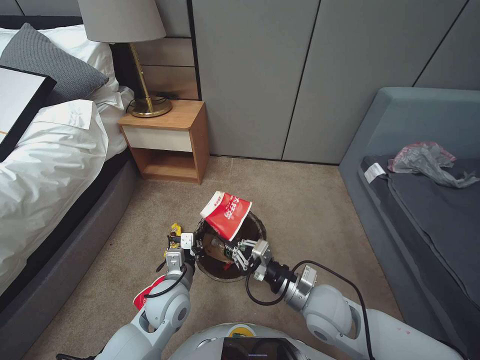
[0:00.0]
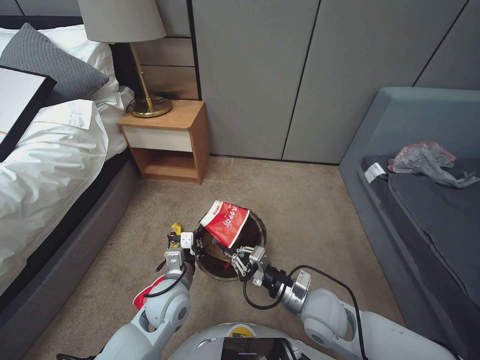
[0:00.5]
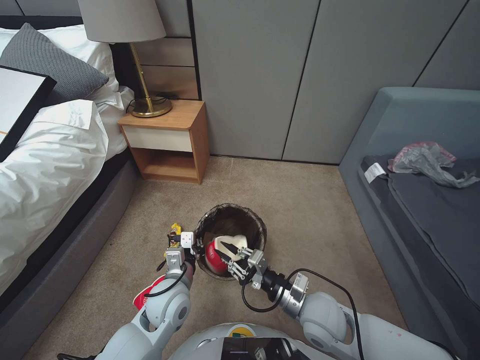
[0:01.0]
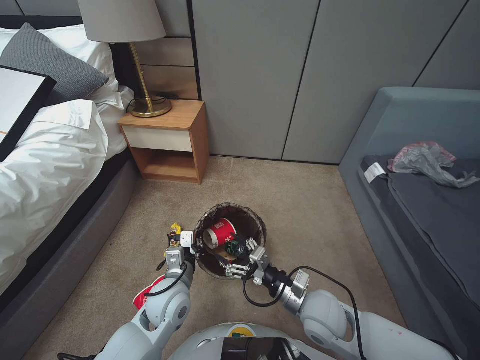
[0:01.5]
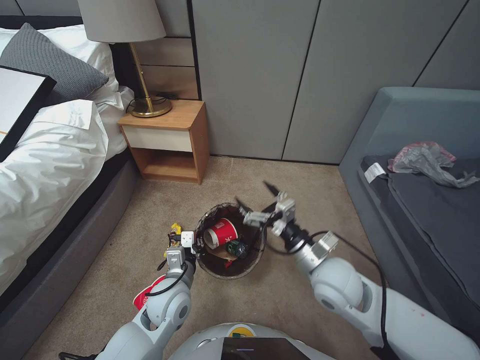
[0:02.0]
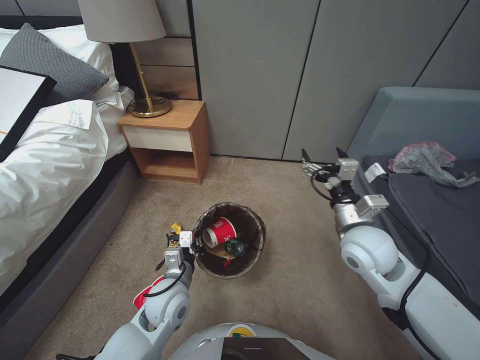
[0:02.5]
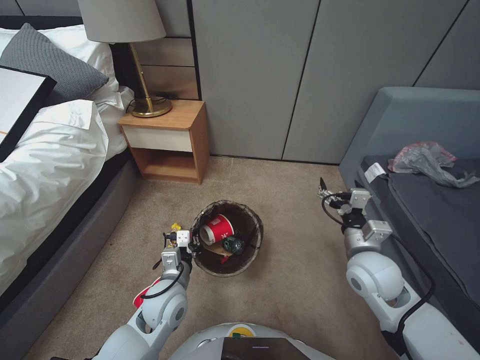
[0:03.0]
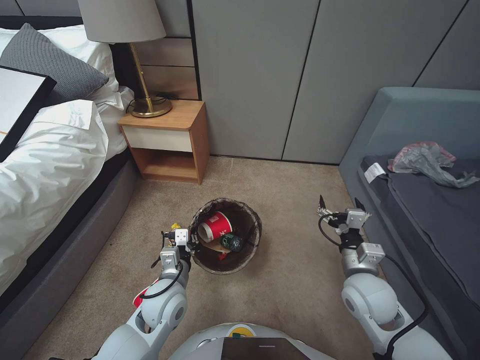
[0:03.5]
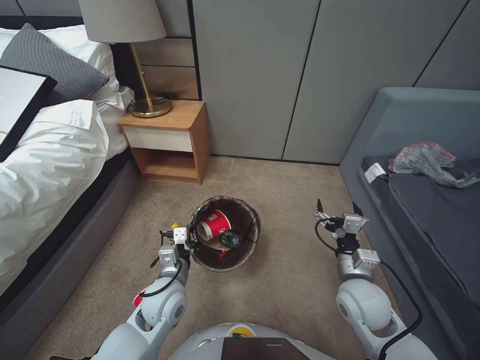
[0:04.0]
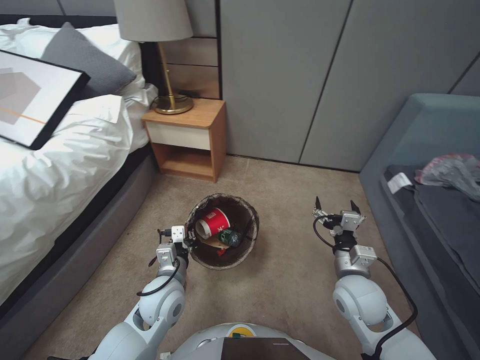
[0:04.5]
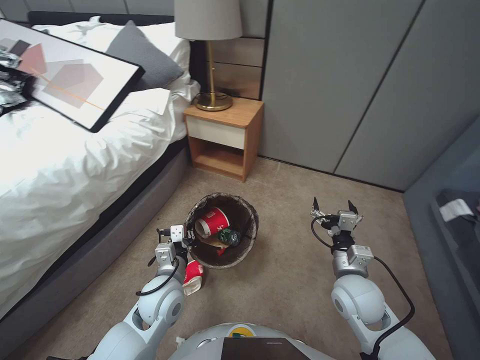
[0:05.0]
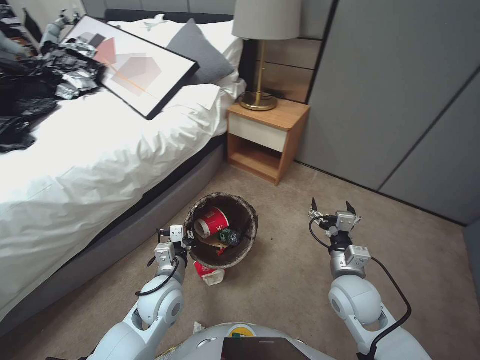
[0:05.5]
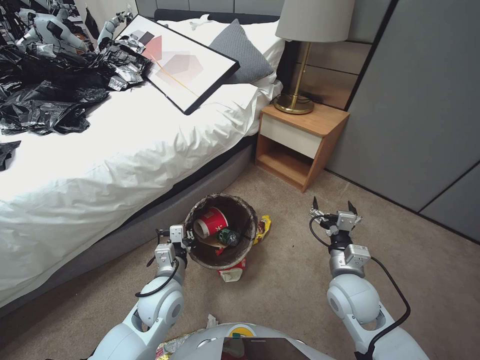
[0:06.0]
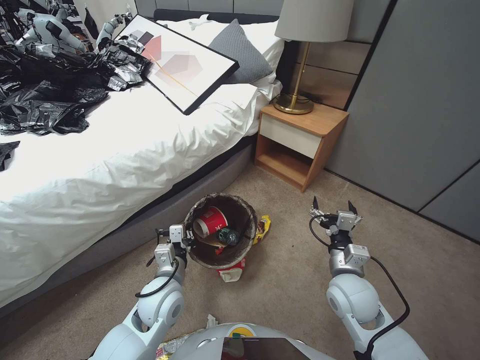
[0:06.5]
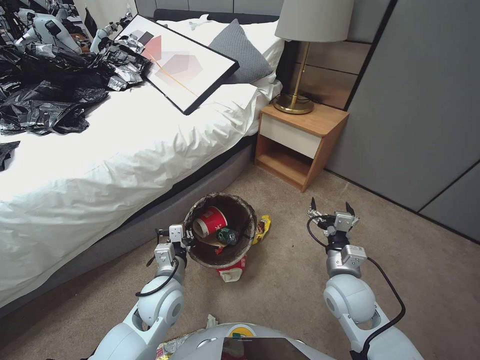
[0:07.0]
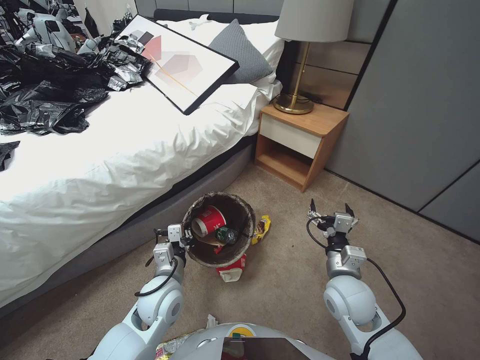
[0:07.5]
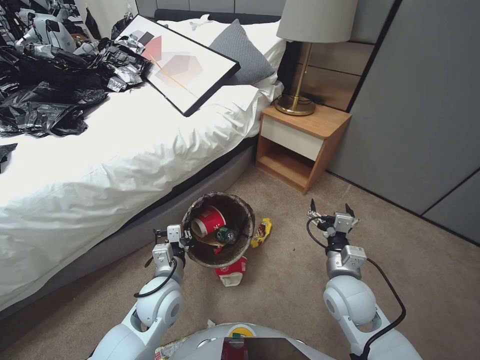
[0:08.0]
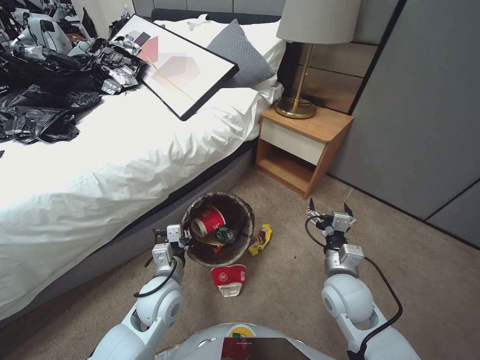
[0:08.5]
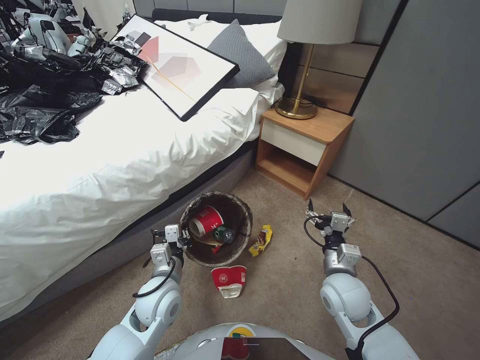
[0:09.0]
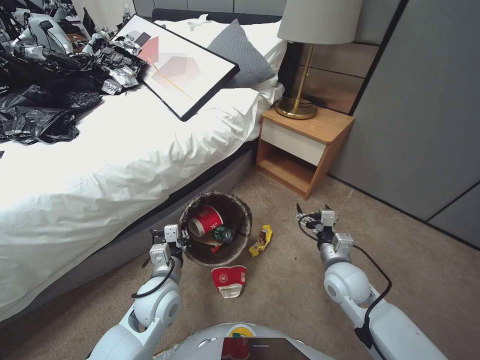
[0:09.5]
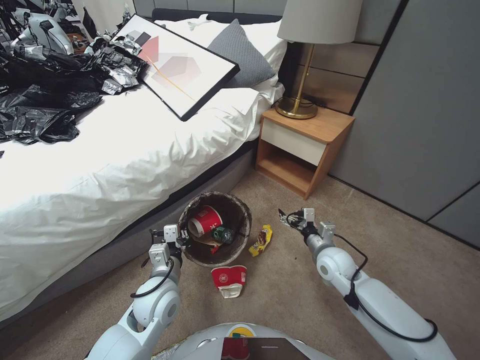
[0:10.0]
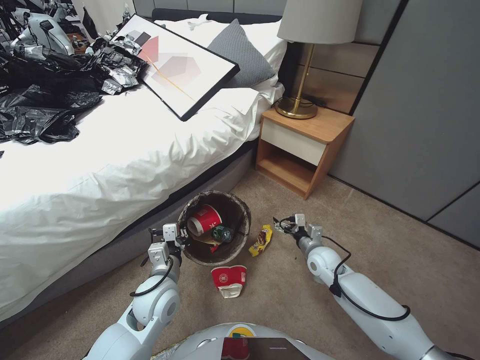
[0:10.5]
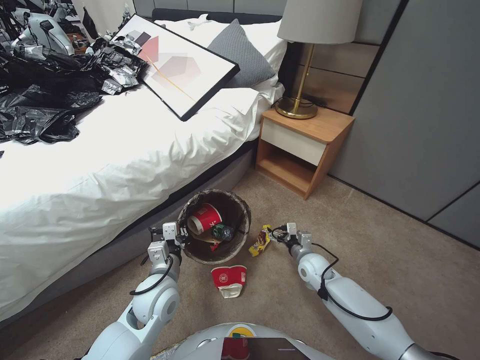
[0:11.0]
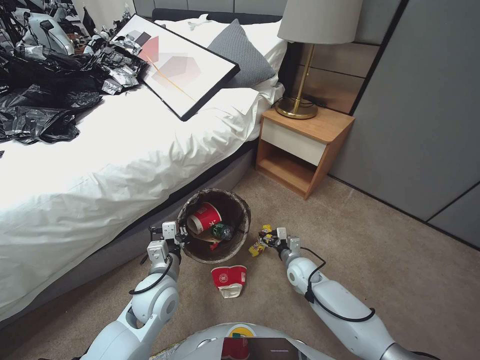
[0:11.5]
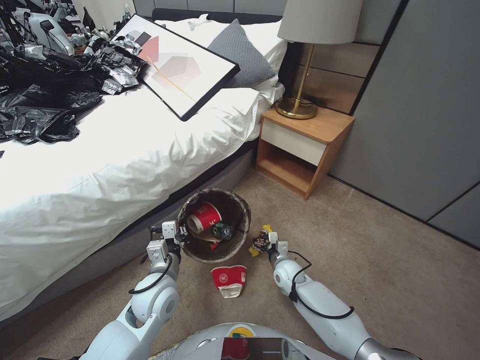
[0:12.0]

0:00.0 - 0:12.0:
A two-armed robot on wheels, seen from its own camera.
Task of the whole recording: Pick up the trash bin, then pick up the garbage from the floor and place it into the trash bin.
0:00.0 - 0:02.0: The right gripper opens its fingers.
0:02.0 - 0:04.0: The right gripper travels to the right by roughly 10 cm.
0:06.0 - 0:08.0: Both grippers stay put.
0:08.0 - 0:10.0: The right gripper shifts about 10 cm forward.
0:10.0 - 0:12.0: The right gripper heads downward and to the left, covering roughly 15 cm.

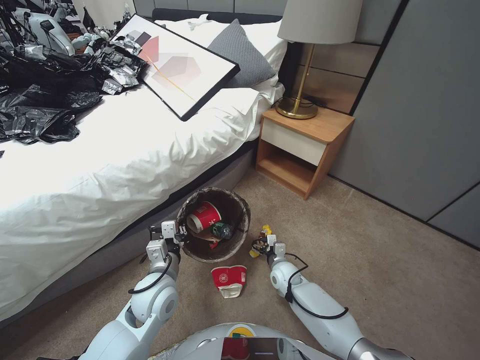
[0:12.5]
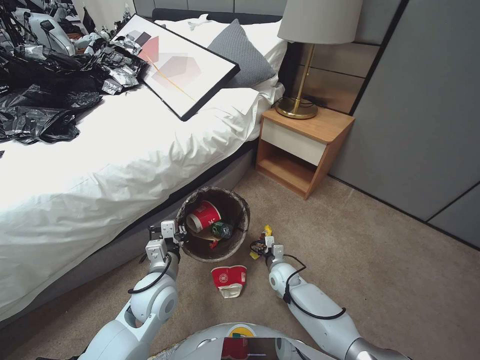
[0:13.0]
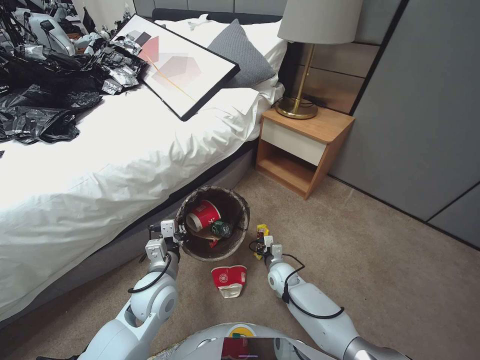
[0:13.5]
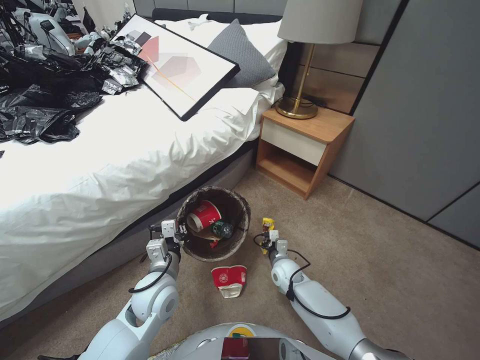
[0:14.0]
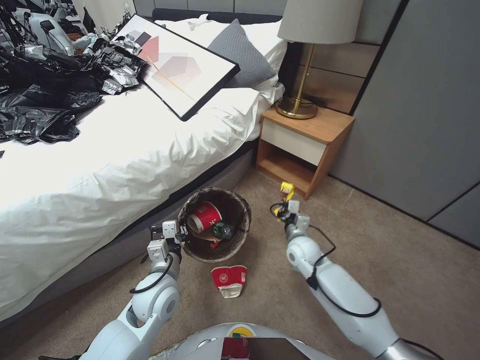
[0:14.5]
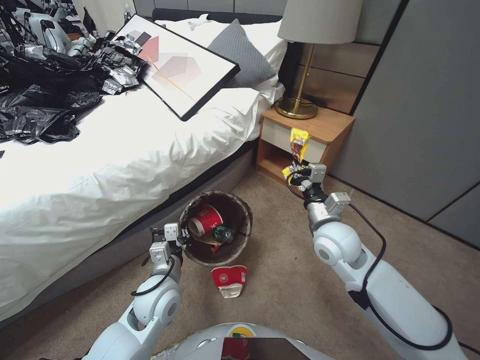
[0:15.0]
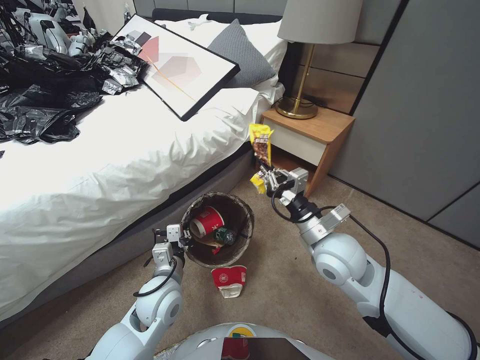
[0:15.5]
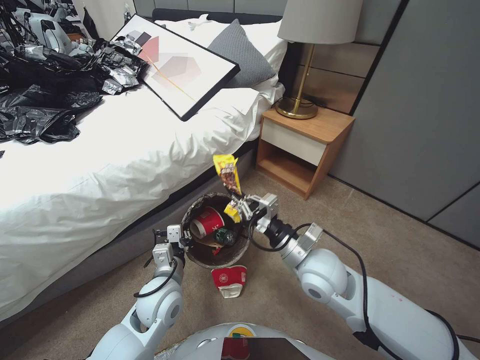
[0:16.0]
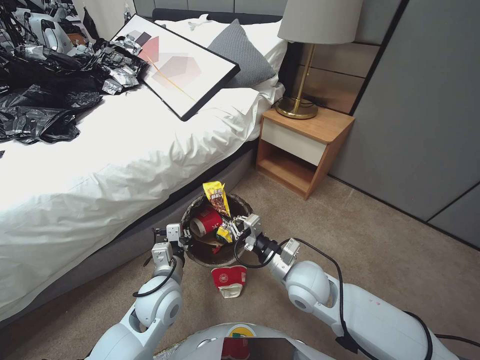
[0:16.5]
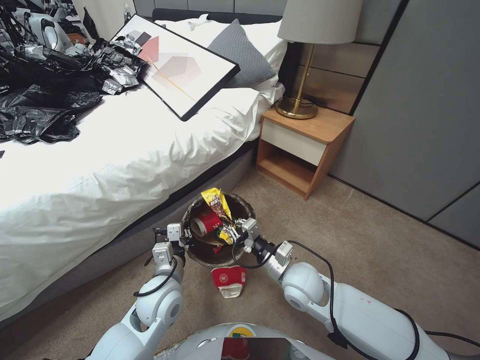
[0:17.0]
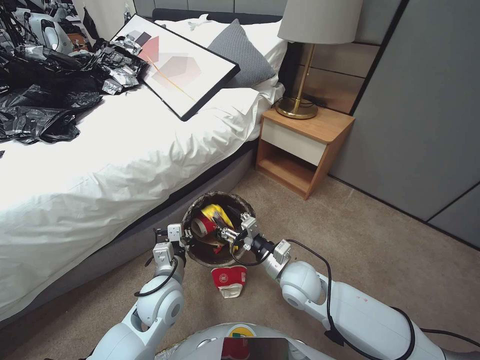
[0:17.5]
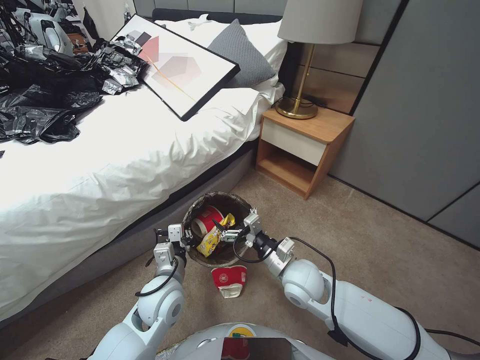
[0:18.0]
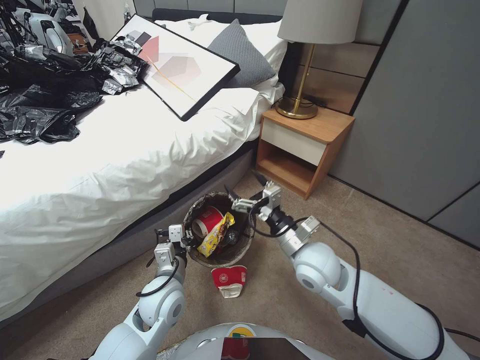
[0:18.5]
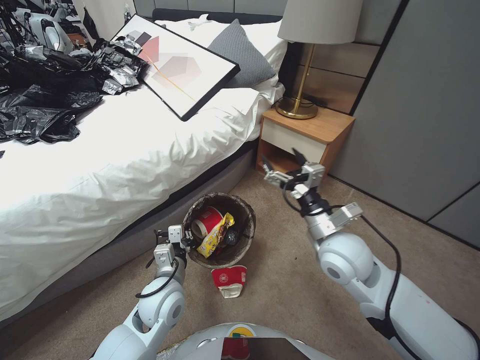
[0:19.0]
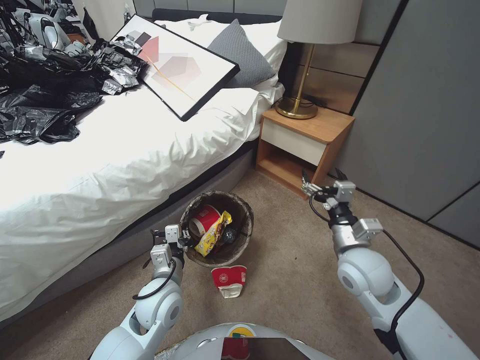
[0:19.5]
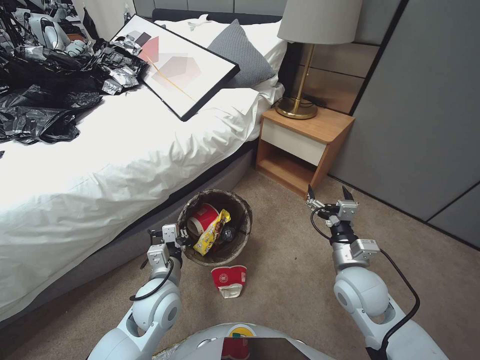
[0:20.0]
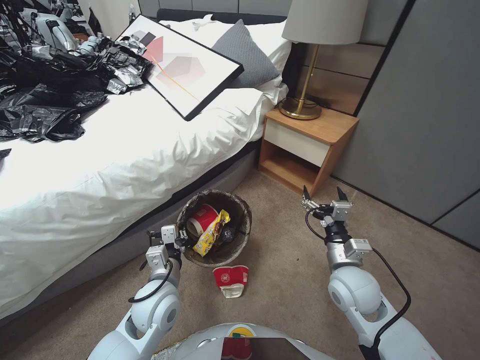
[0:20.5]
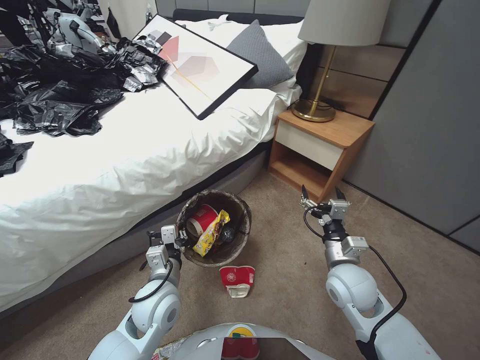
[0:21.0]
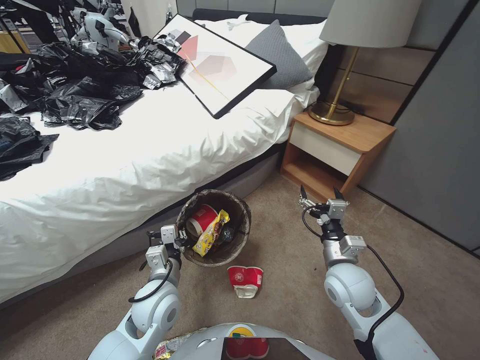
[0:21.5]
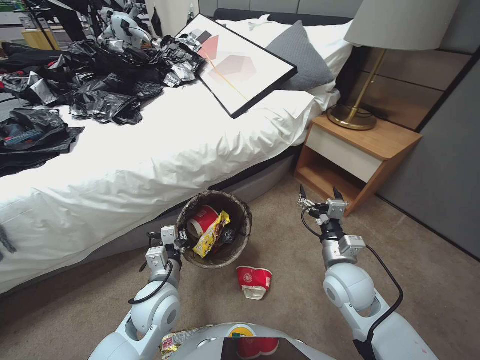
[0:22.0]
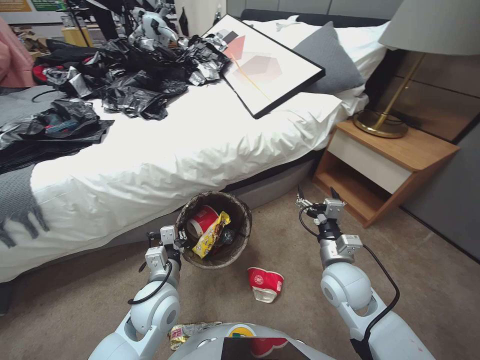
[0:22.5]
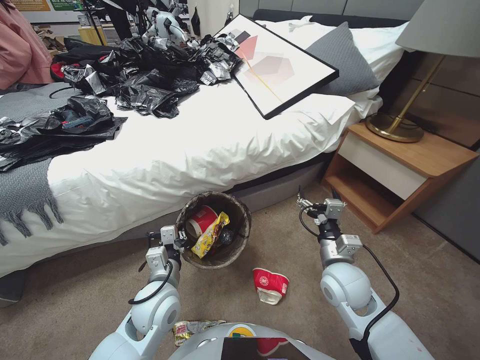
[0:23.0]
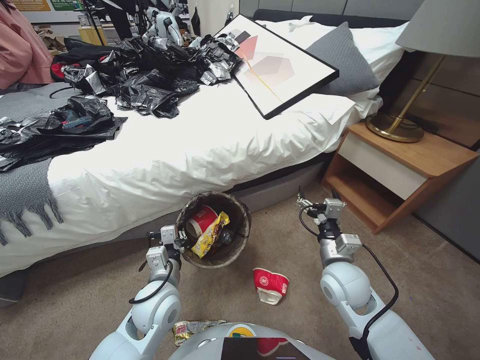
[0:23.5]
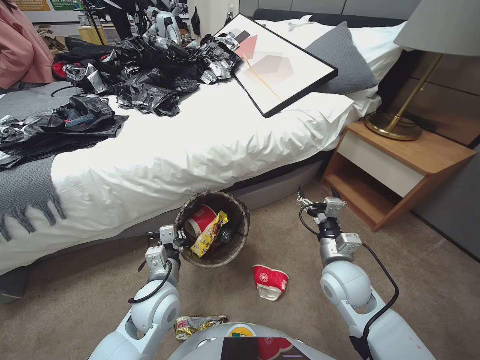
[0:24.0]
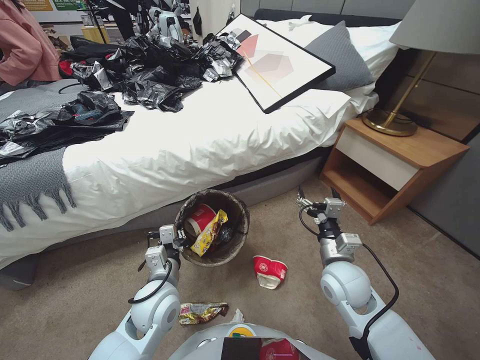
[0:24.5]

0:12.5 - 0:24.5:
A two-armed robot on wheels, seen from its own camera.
Task of the whole recording: Pick up the trash bin, then pick up the garbage from the floor and place it into the trash bin.
0:12.5 - 0:14.5: The right gripper goes some 10 cm upward, and closes.
0:14.5 - 0:16.5: The right gripper moves upward and backward, approximately 20 cm.
0:16.5 - 0:18.5: The right gripper opens.
0:18.5 - 0:20.5: The right gripper travels to the right by roughly 10 cm.

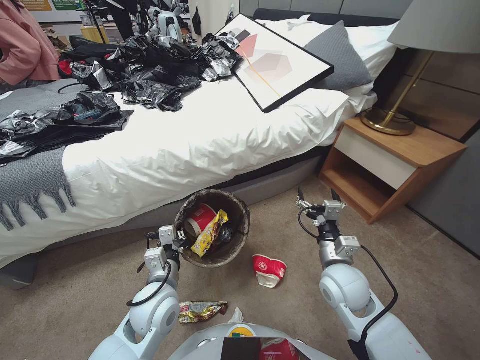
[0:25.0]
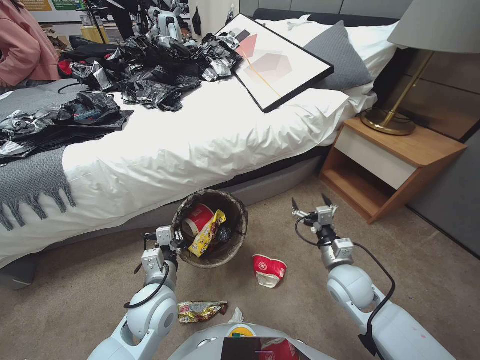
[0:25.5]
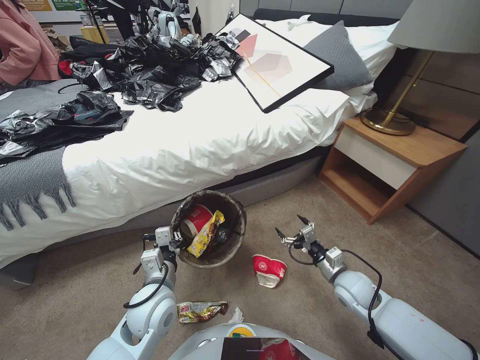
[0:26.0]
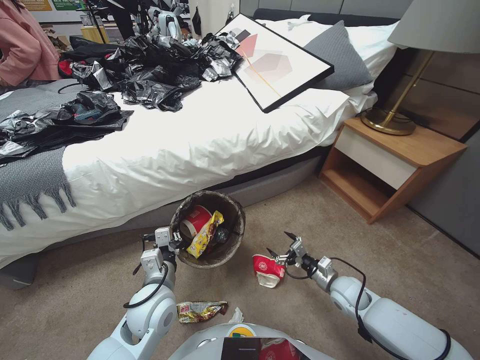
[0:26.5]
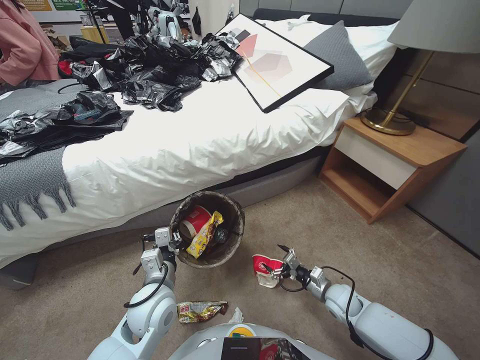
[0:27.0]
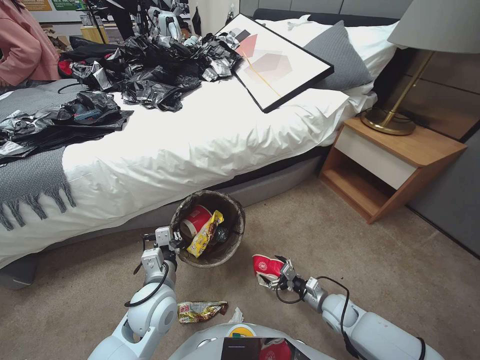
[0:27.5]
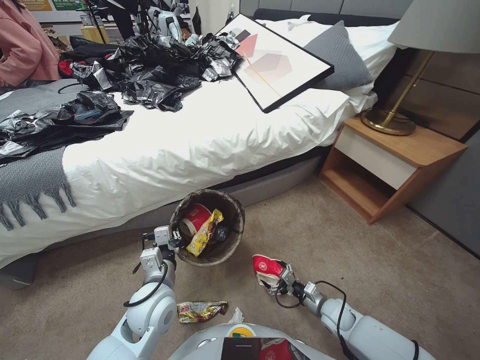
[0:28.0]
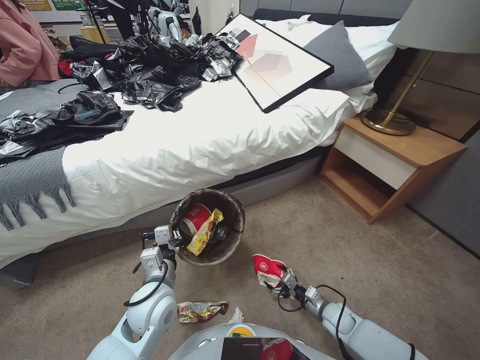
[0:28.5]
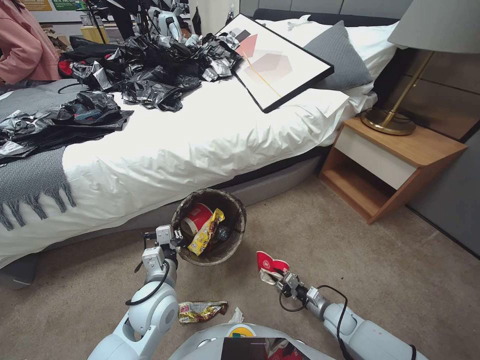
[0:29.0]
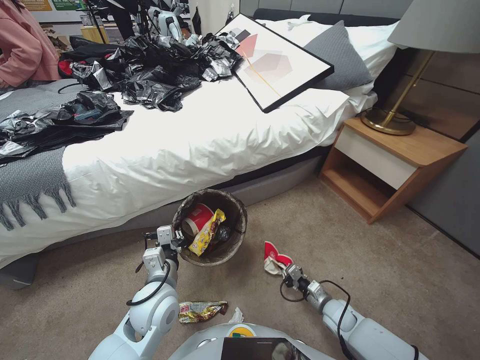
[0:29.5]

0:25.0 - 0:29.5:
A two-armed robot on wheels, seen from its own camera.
Task of the whole recording: Pick up the trash bin, then pick up the garbage from the floor and place it into the trash bin.
0:25.0 - 0:27.0: The right gripper travels downward and to the right by approximately 20 cm.
0:27.0 - 0:29.5: The right gripper shifts about 10 cm downward, and closes up.
